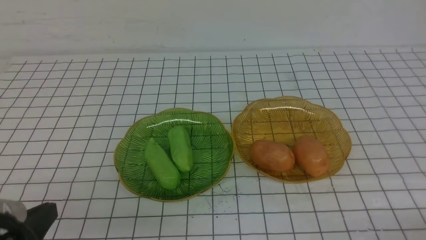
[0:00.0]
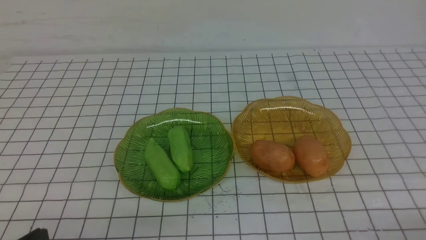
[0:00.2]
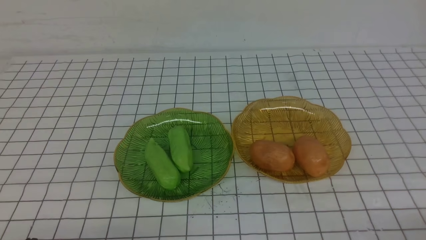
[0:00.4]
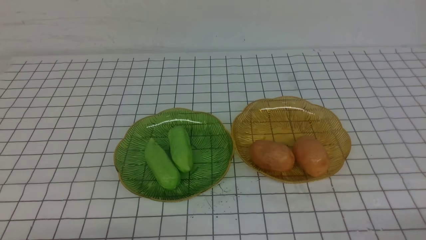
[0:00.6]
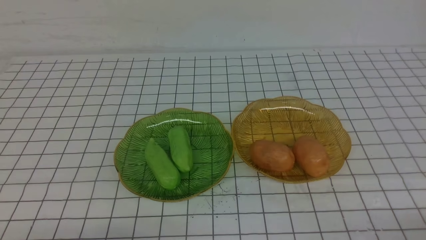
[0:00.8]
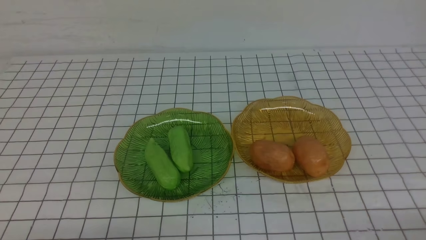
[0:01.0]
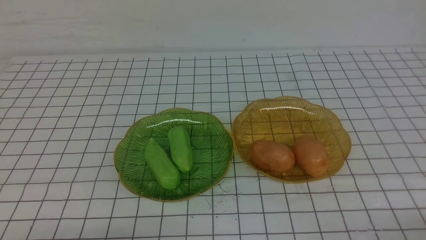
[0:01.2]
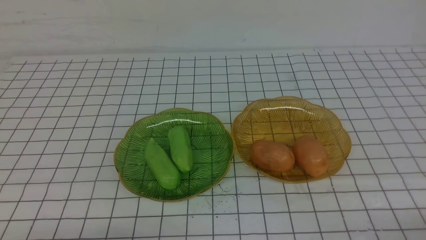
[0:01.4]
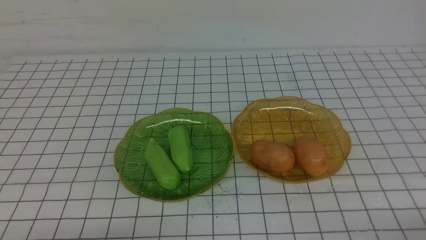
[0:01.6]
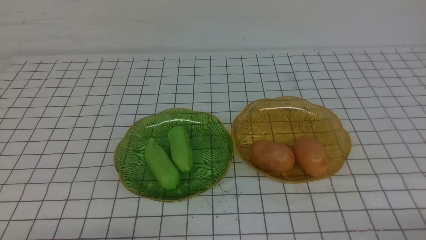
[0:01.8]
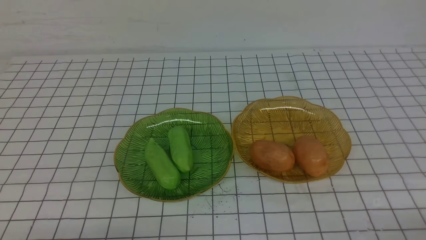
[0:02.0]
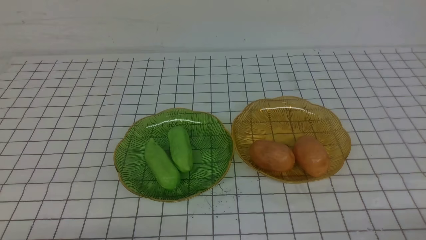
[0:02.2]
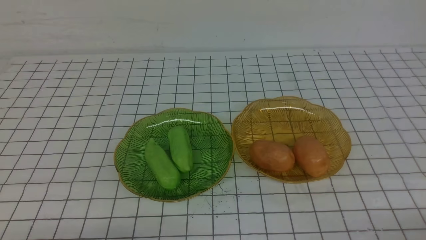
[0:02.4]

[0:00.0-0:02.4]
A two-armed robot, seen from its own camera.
0:00.0 to 0:01.2: The left gripper goes about 5 cm downward.
0:01.2 to 0:02.4: The two grippers keep their place.
